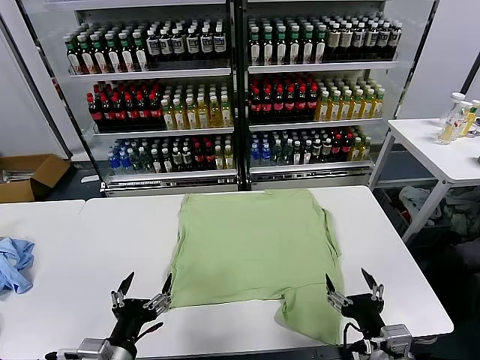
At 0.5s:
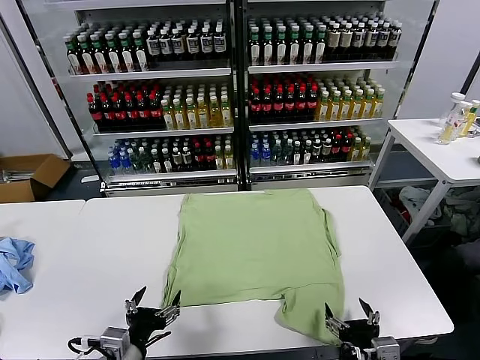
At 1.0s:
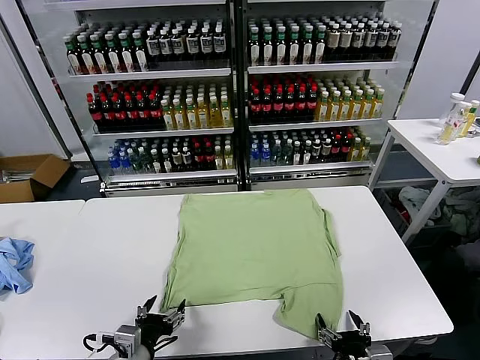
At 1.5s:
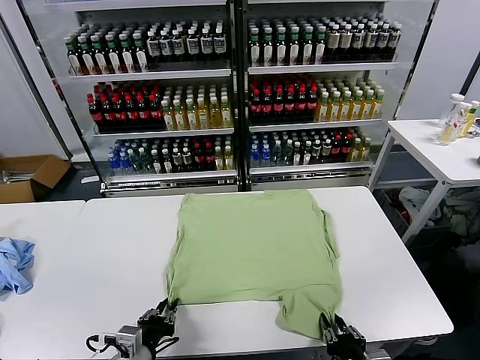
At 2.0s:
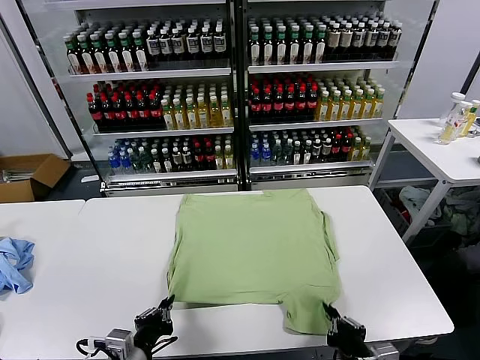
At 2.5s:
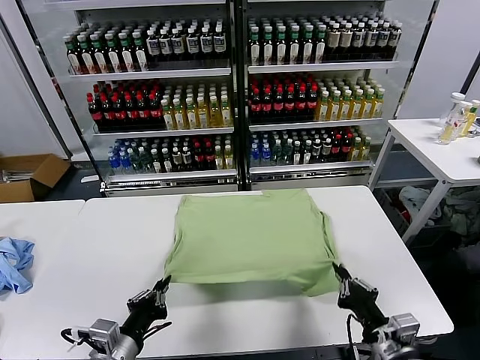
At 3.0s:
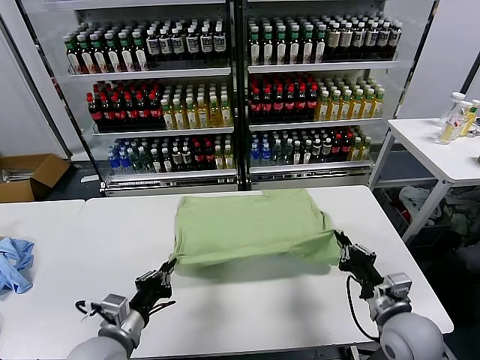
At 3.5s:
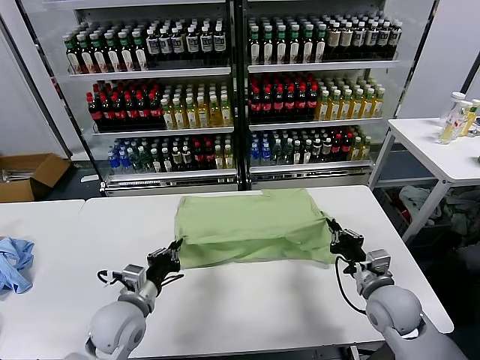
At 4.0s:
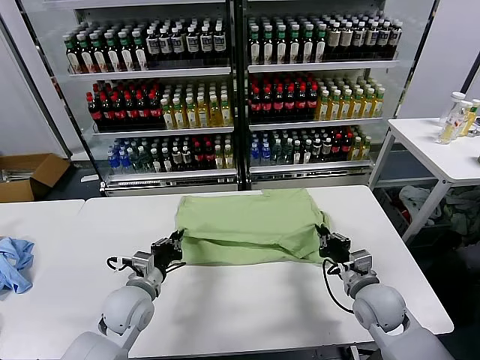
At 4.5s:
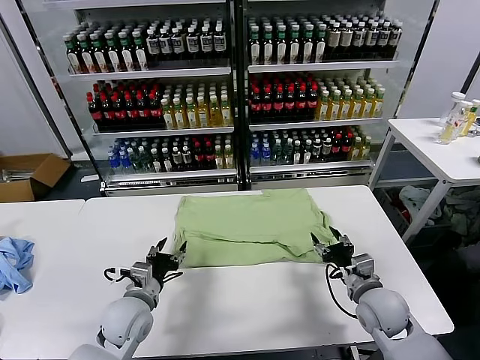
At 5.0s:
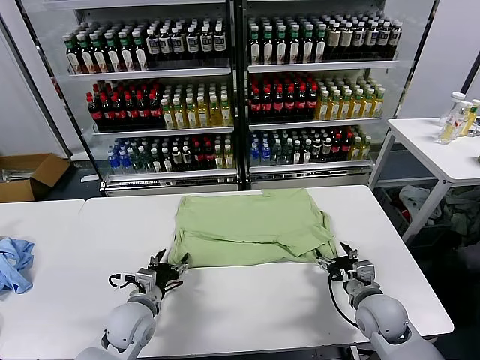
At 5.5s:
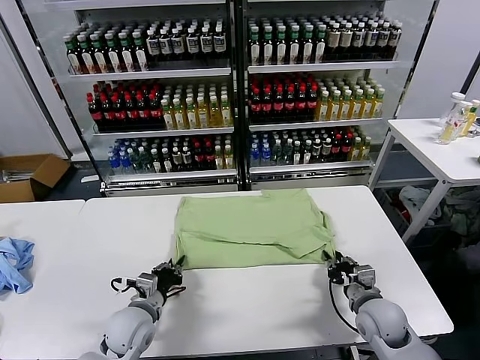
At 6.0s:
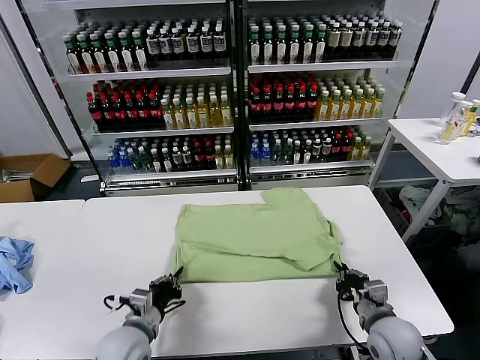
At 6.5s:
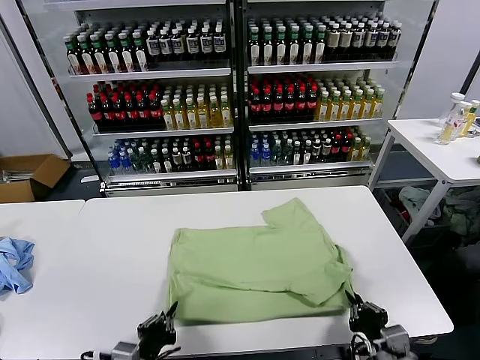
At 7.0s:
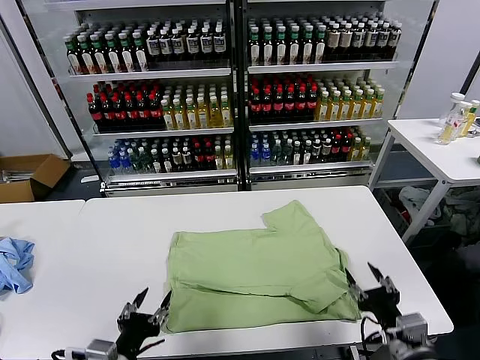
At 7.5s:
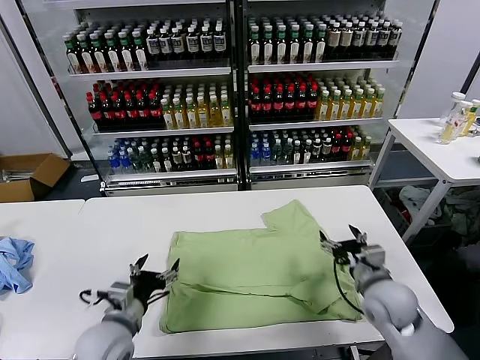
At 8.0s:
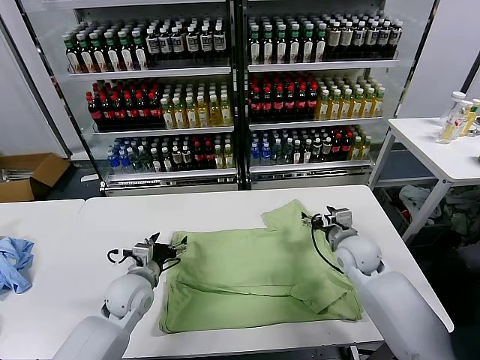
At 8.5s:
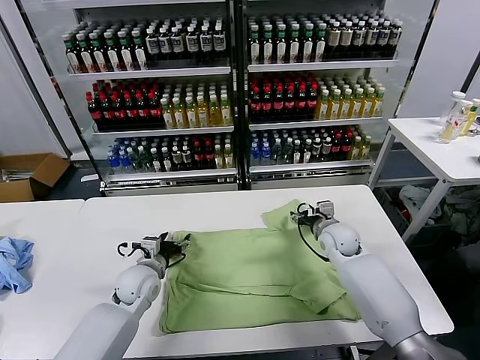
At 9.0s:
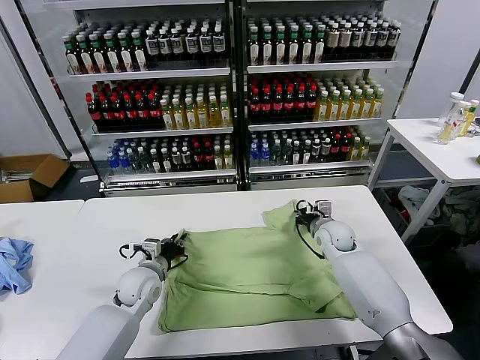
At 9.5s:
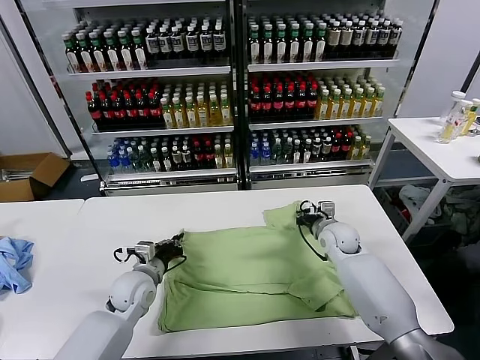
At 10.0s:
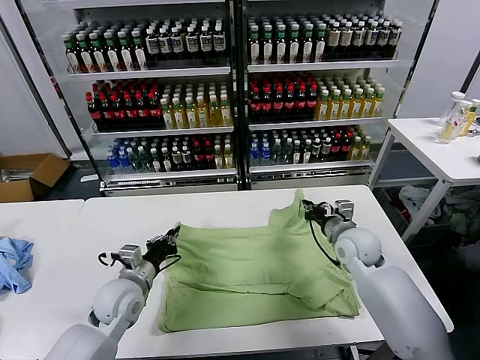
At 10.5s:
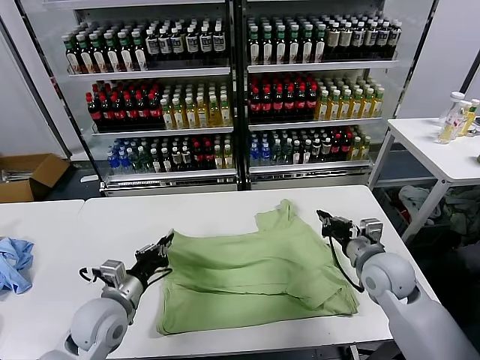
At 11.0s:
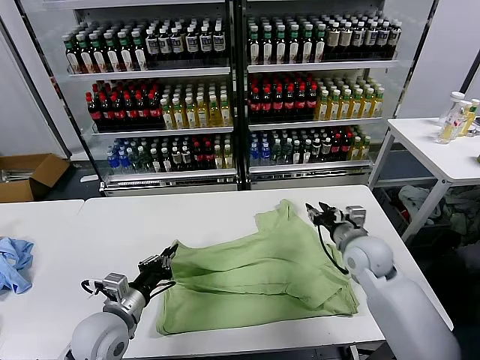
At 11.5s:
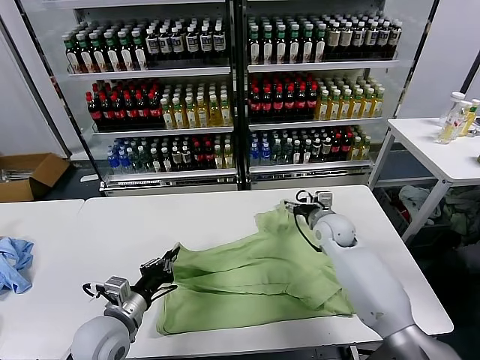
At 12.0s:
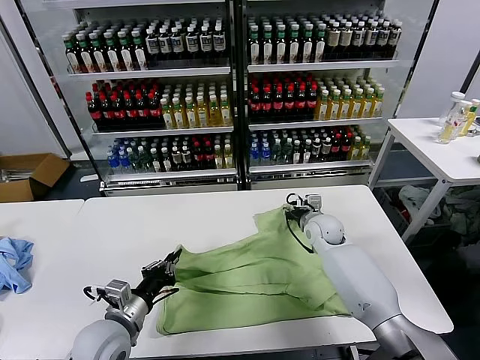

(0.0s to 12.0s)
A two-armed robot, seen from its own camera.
Task of the whole recording: fold and organize the clothes.
Step, 0.0s - 1.5s: use both grippers simultaneously to clamp the lower edge of the clothing fabric.
Step, 2.0s - 4.0s: use both grippers to drag the lower edge of the fabric forward and fold it over the upper edge.
Step, 4.5s - 6.5s: Drag the clothes downward with both gripper.
Step, 7.0s - 9.0s: use both grippers simultaneously to clamp the upper edge of the clothing fabric.
2.0s - 4.0s: The grippers both shift forward by approximately 20 cm.
4.0s - 6.0s: Both grippers move backward, approximately 5 cm. The left gripper opens and closes again. The right gripper opens, then closes again.
6.0s - 8.0s: The left gripper moves forward, some 10 cm, and opens. The right gripper heads forward, covering roughly 20 cm, and opens.
8.0s - 10.0s: The right gripper moves approximately 10 cm forward and comes back, and closes its fingers; the left gripper closes its fingers.
10.0s - 12.0s: The left gripper travels backward by about 10 cm. The right gripper is displaced forward and to the left by roughly 10 cm, and opens its fingers.

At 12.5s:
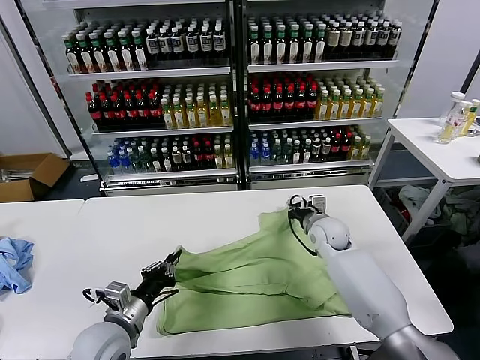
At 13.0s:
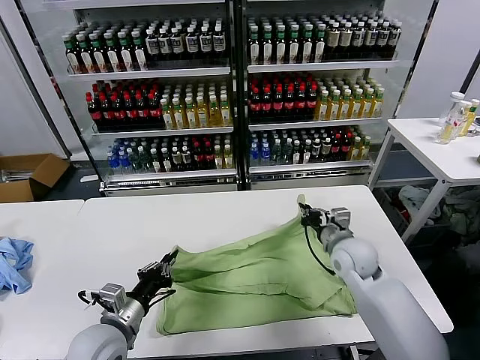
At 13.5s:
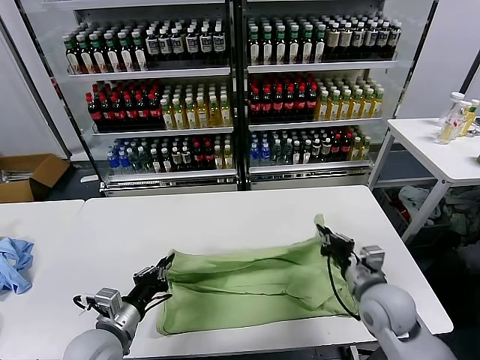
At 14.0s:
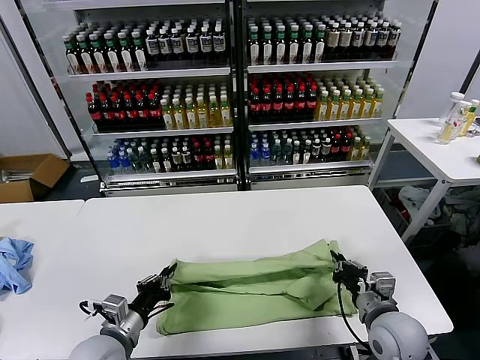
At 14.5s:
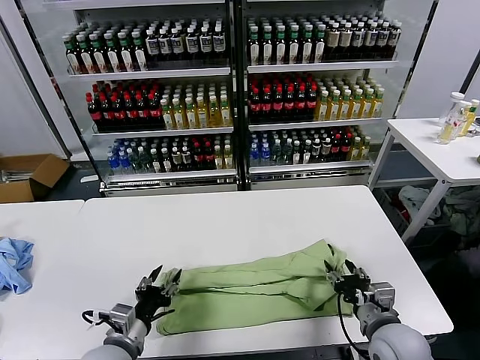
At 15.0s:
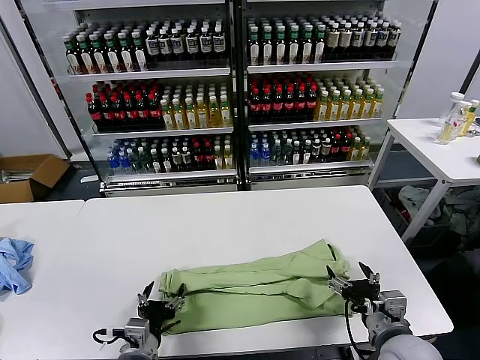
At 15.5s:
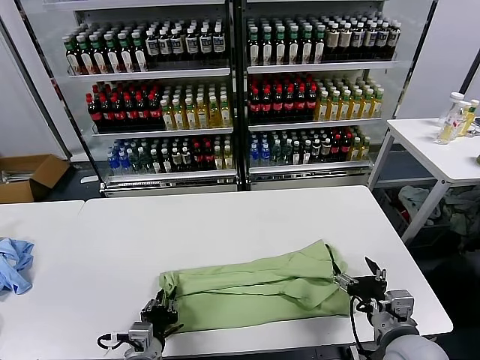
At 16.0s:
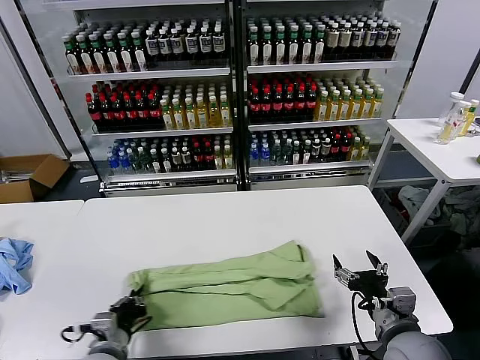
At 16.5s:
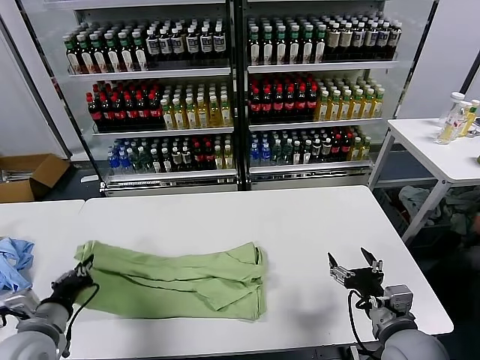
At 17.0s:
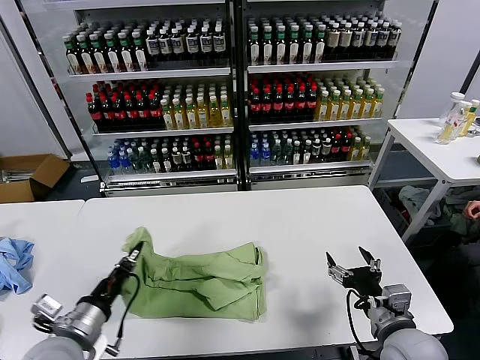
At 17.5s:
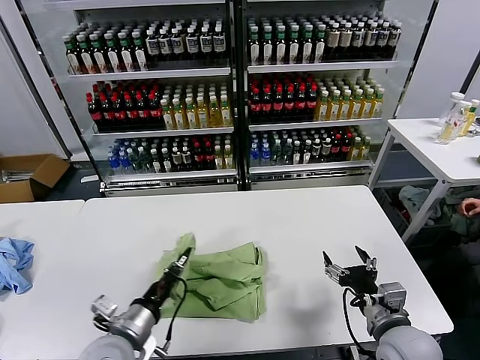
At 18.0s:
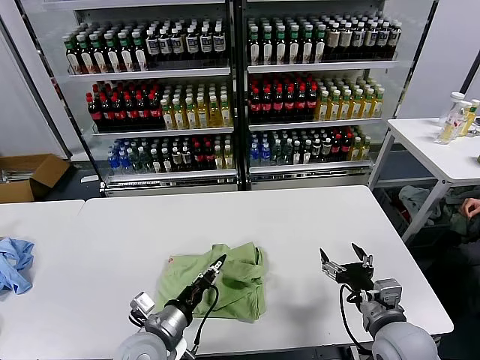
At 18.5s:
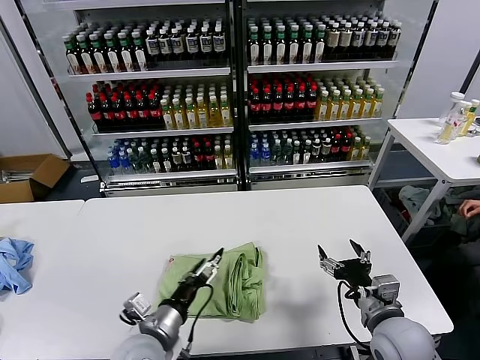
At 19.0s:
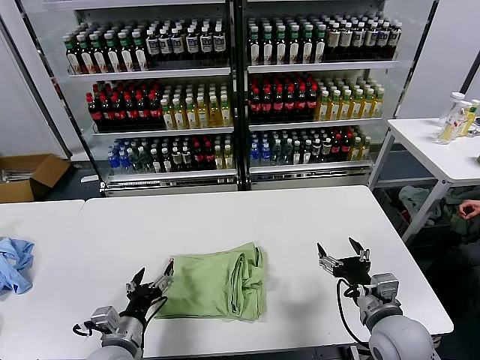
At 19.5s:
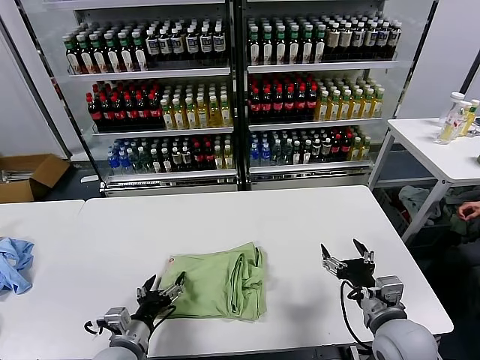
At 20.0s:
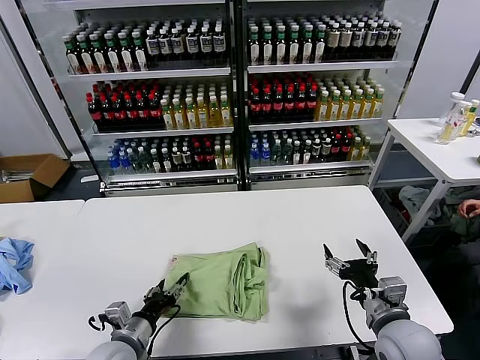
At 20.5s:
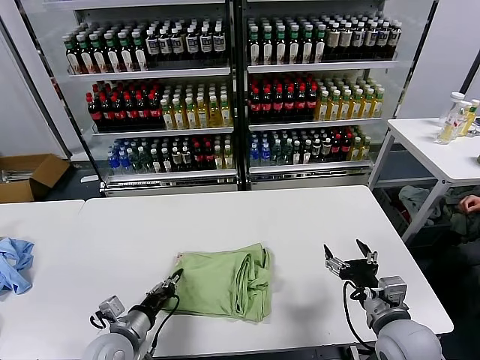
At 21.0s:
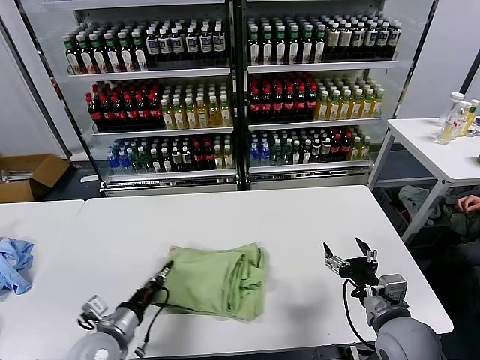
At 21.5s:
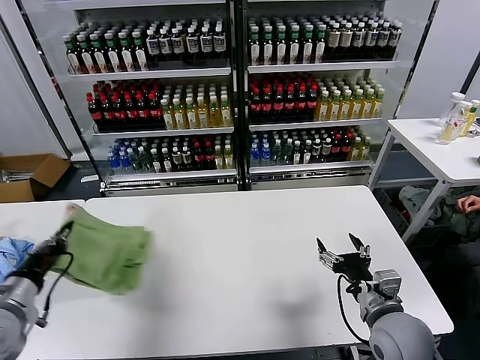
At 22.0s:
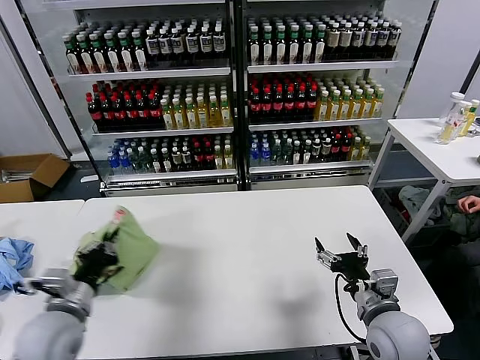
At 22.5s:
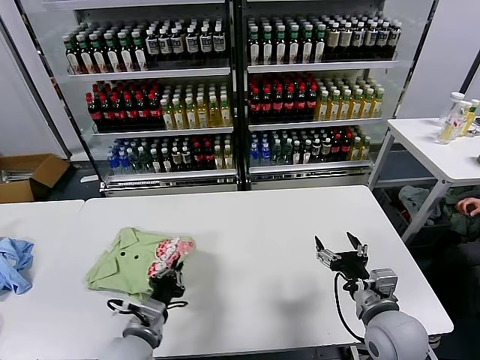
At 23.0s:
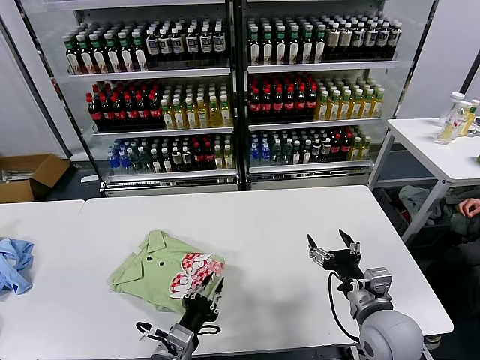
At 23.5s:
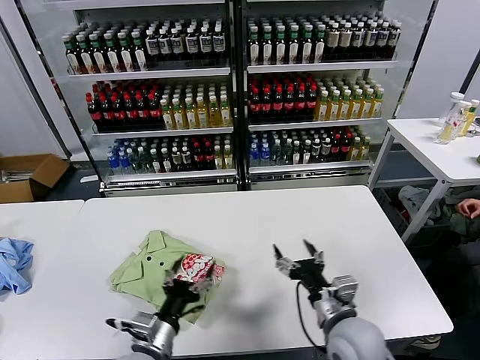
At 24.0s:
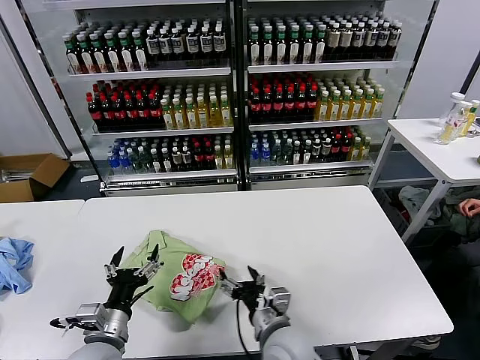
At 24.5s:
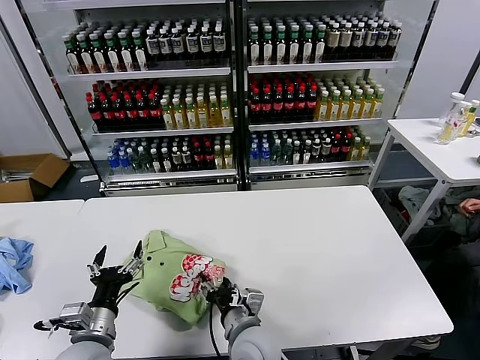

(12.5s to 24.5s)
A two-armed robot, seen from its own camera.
Task of the whole recording: fold and organize the clothes.
Step, 12.5s - 14.5s: use both grippers to drag the upper edge of the fabric backward and fold it over the lower edge.
Step, 15.0s - 15.5s: use the left gripper to clamp the left edge of the fabric.
Step, 16.0s - 18.0s: use the left gripper to drag the left edge of the fabric to the left and folds it over the right edge.
Step, 19.0s - 23.0s: Flip the folded clothes over with left gripper.
12.5s - 14.5s: The left gripper opens its fingers. The right gripper shifts approximately 25 cm backward, and opens.
14.5s - 16.5s: The left gripper moves to the left and upward, roughly 15 cm, and closes.
16.5s - 18.5s: The left gripper shifts approximately 20 cm to the right, and opens its fingers.
18.5s - 20.5s: The left gripper heads to the left and downward, covering roughly 10 cm, and closes.
20.5s - 22.5s: The left gripper moves roughly 15 cm to the left and comes back.
22.5s - 24.5s: The left gripper is displaced to the left by some 5 cm, and opens up. Meanwhile the right gripper goes approximately 25 cm to the left.

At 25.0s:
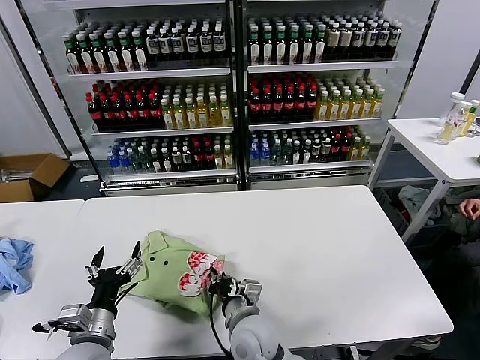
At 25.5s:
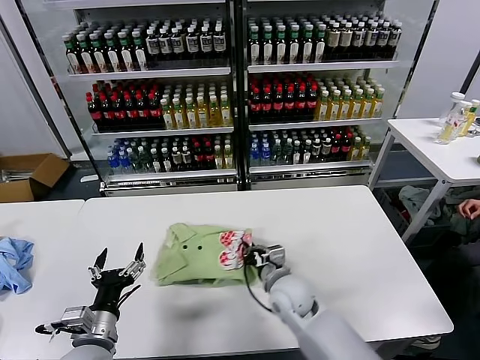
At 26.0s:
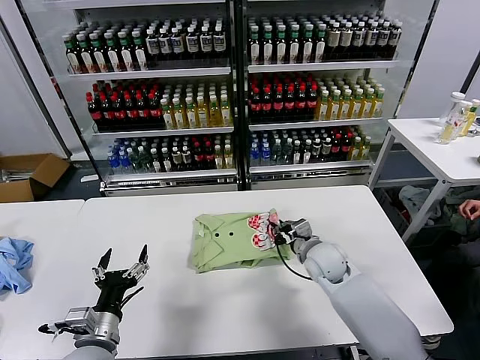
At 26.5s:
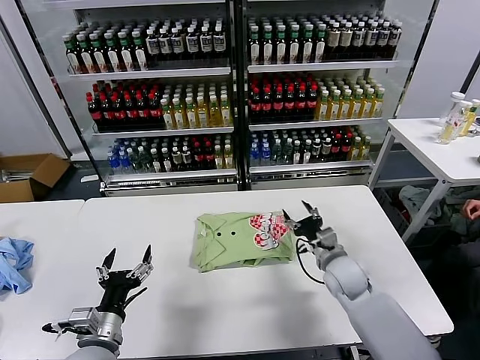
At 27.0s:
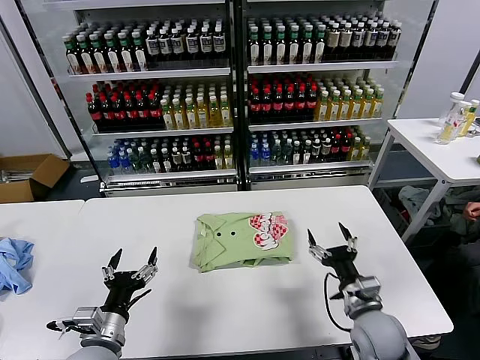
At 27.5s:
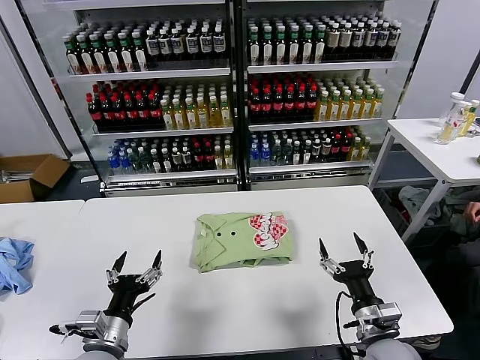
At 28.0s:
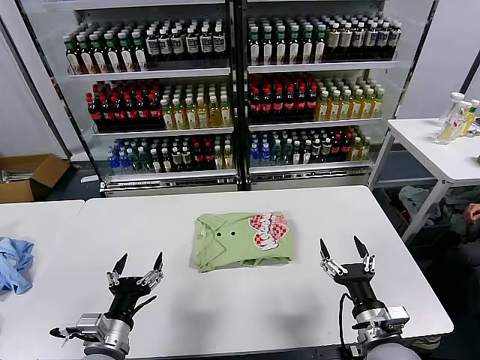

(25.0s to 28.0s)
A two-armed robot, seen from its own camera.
Task of the whole recording: fold and organize the clothes.
25.0s - 26.5s: The right gripper moves to the right and forward, approximately 25 cm, and opens up.
26.5s - 28.0s: The right gripper moves backward, approximately 20 cm.
